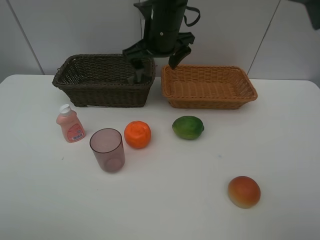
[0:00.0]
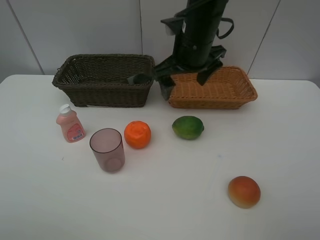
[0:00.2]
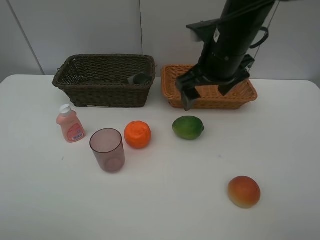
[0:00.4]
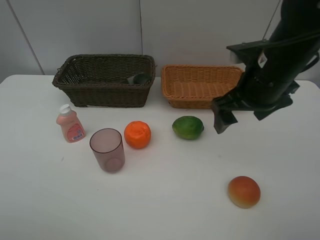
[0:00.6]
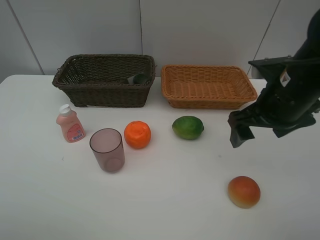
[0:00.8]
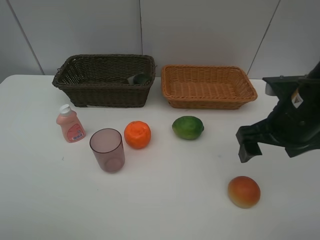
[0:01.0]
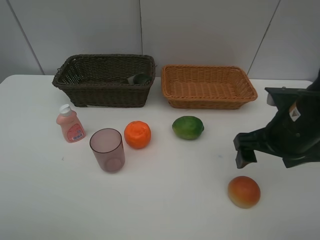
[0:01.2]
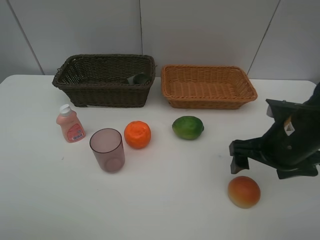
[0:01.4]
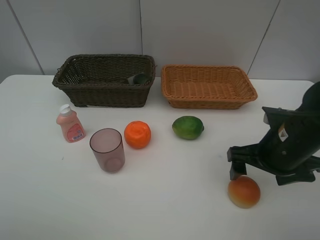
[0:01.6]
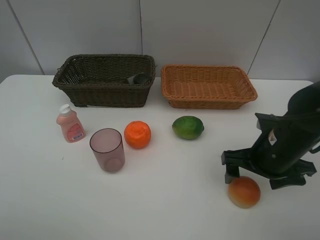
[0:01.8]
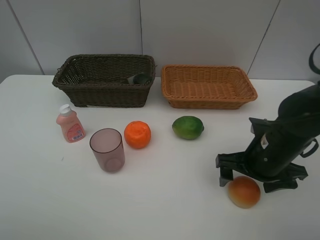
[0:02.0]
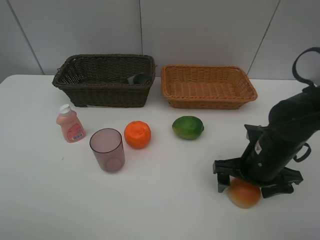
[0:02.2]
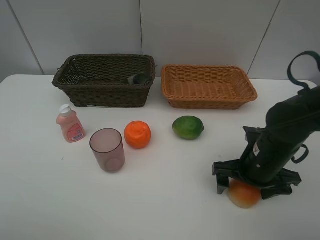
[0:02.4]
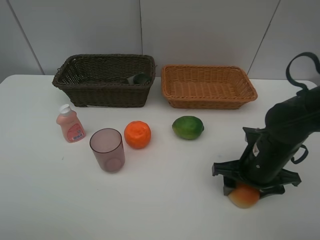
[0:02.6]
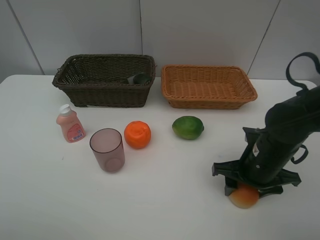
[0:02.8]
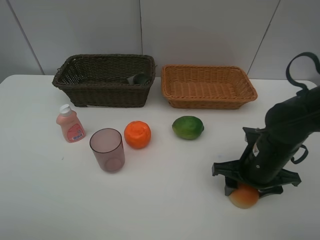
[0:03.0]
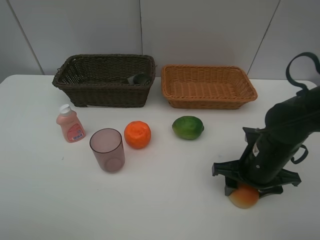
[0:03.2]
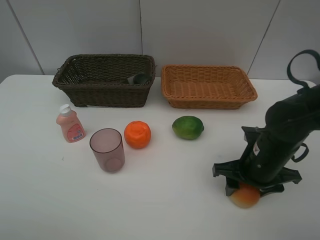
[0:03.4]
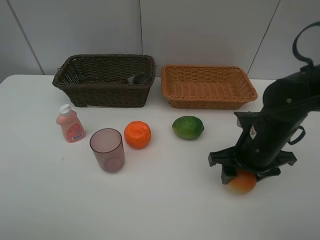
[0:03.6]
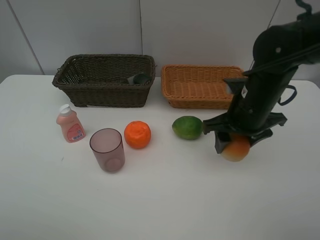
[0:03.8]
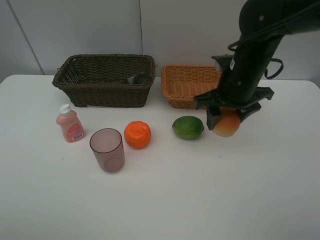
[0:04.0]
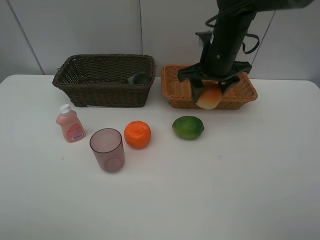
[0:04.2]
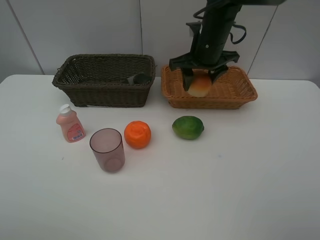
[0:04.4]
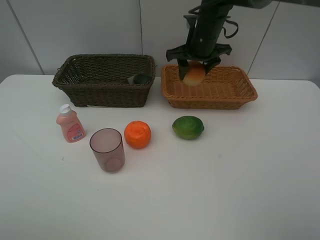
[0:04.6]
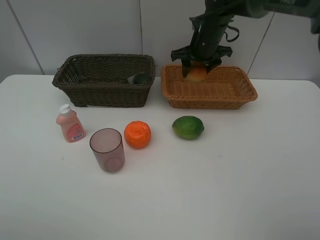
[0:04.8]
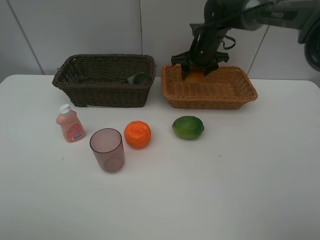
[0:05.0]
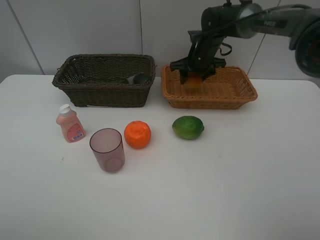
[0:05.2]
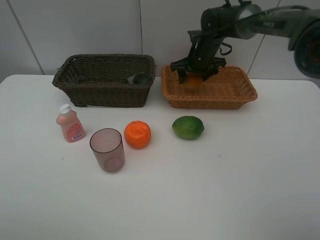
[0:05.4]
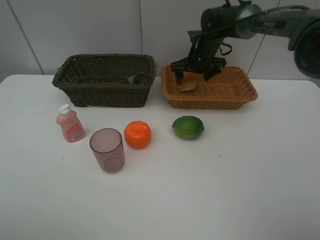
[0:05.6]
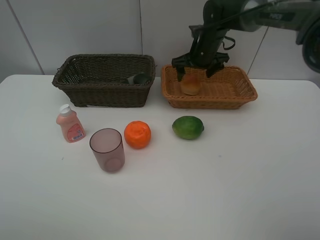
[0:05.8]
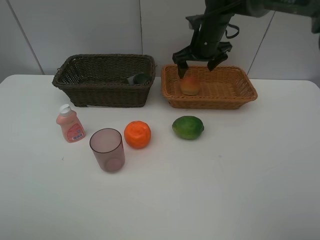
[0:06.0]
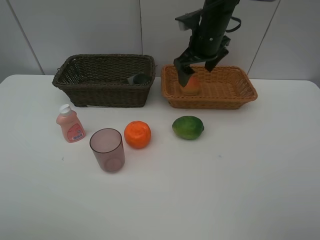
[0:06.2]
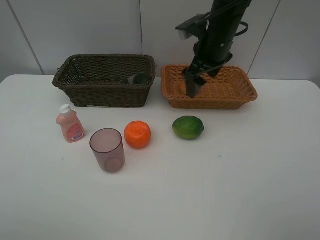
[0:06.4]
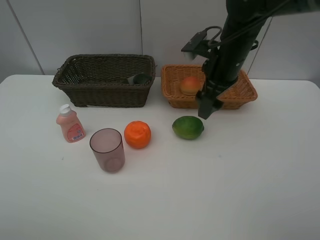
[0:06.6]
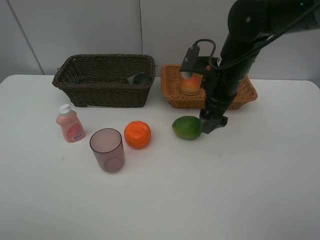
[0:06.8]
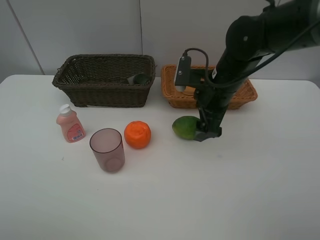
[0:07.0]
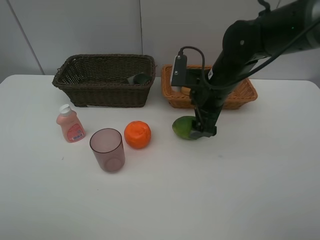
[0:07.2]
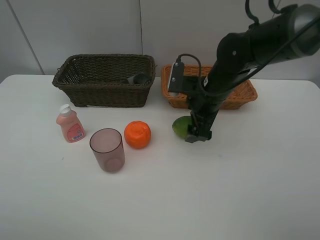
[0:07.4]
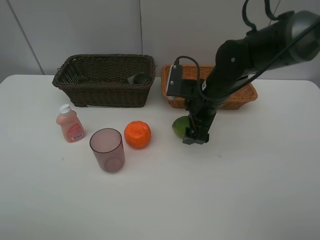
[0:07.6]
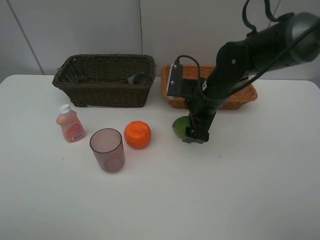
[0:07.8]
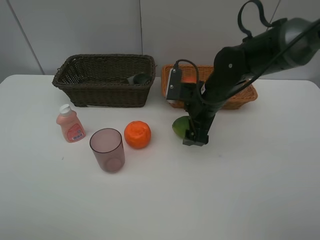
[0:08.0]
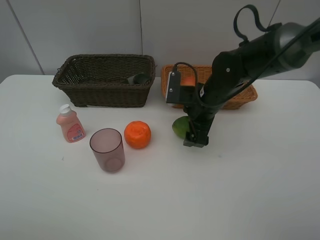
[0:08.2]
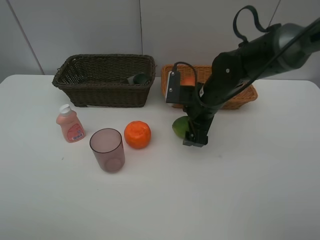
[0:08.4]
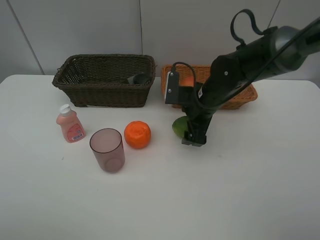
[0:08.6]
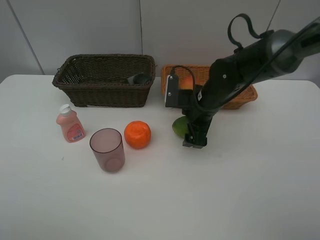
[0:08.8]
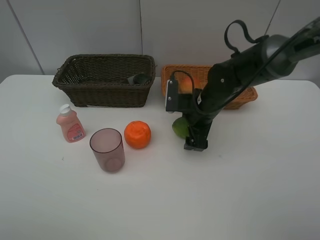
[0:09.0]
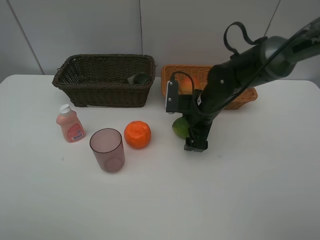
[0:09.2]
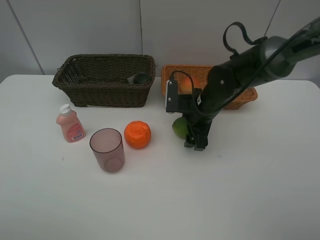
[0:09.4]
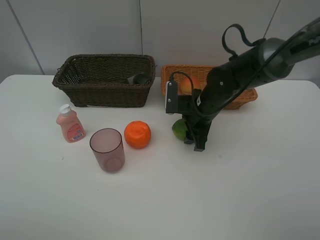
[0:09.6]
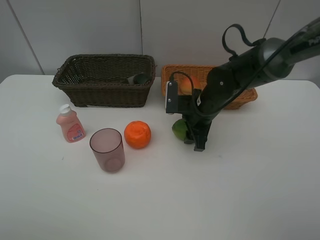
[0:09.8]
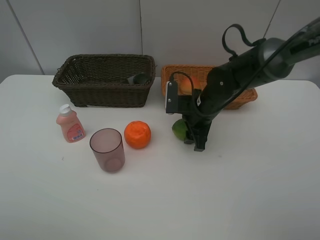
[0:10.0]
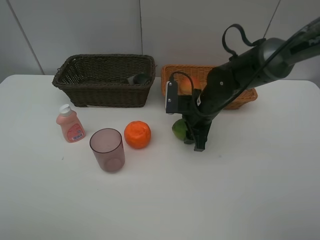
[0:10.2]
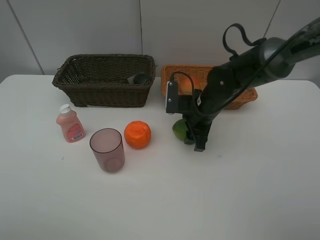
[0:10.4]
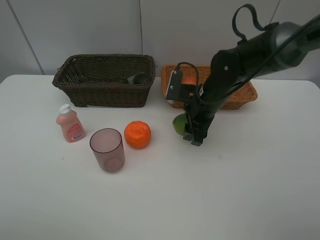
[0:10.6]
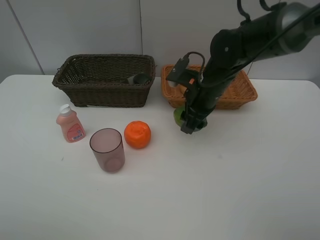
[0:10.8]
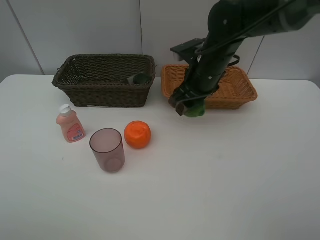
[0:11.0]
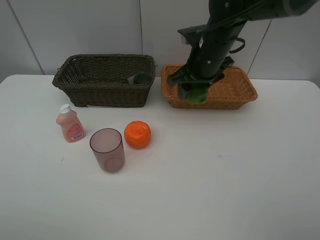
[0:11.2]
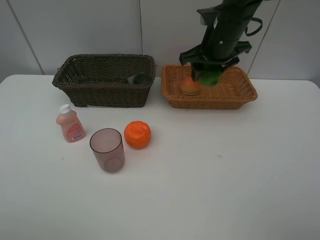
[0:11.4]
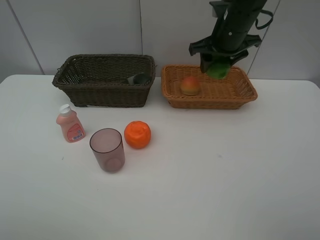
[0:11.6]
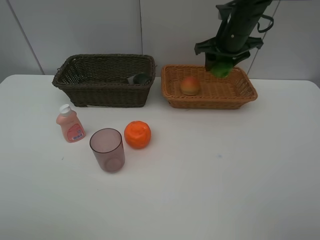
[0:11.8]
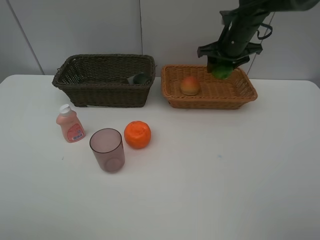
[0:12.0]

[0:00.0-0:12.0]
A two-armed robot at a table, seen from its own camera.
Task of the whole recording: place multiple objects separately in different baskets.
0:00.0 to 0:01.6: The right gripper heads to the right, backward and downward, covering roughly 30 cm.
0:01.6 to 0:03.0: The right gripper goes about 5 cm downward, and closes.
0:03.0 to 0:04.4: The right gripper shifts approximately 25 cm forward, upward and to the left.
0:04.4 to 0:06.0: The right gripper is displaced forward by roughly 5 cm, and opens its fingers.
0:06.0 to 0:07.6: The right gripper moves backward and downward, approximately 15 cm.
0:07.6 to 0:09.0: The grippers stay close to where they were, moving slightly.
0:09.0 to 0:10.4: The right gripper closes.
0:10.4 to 0:12.0: The right gripper goes roughly 20 cm forward, upward and to the right.

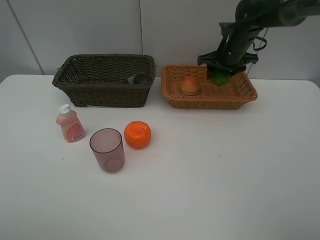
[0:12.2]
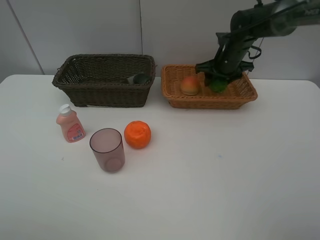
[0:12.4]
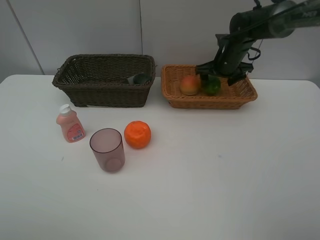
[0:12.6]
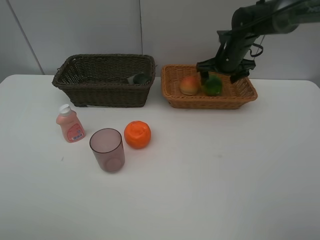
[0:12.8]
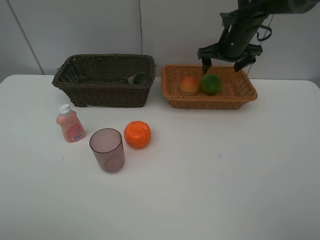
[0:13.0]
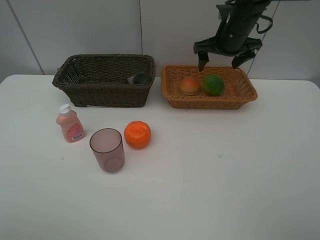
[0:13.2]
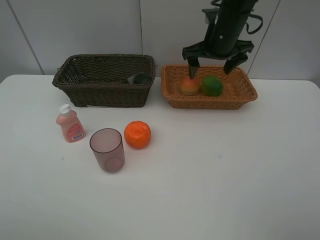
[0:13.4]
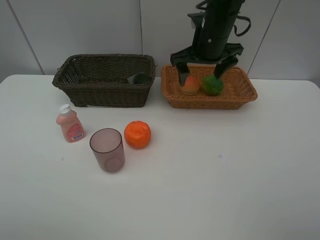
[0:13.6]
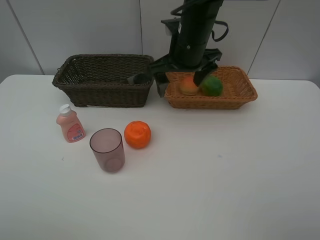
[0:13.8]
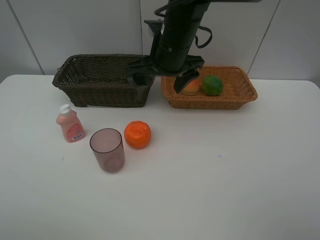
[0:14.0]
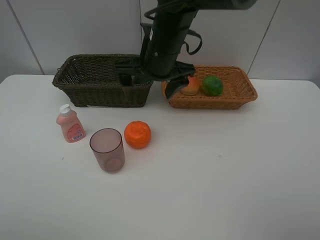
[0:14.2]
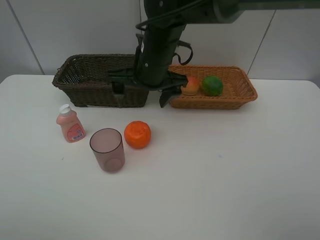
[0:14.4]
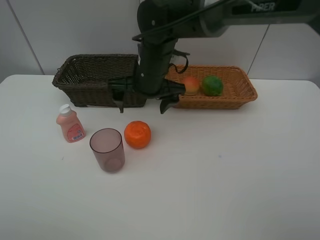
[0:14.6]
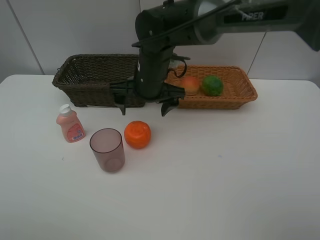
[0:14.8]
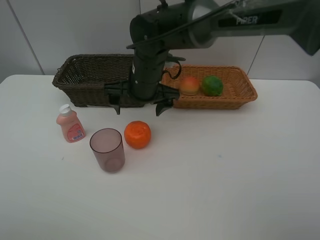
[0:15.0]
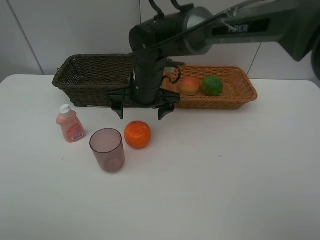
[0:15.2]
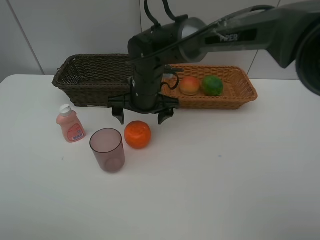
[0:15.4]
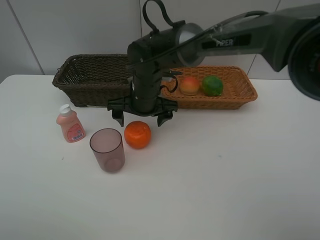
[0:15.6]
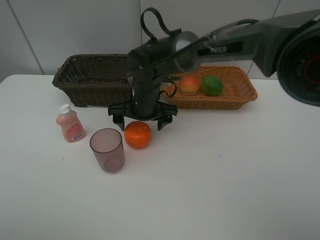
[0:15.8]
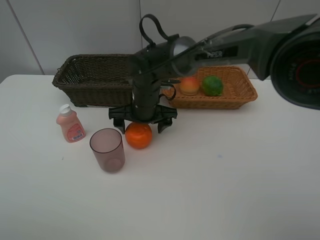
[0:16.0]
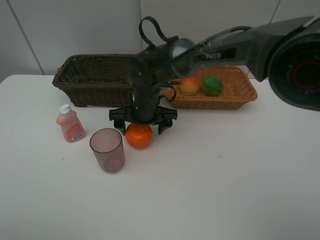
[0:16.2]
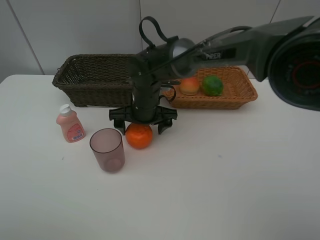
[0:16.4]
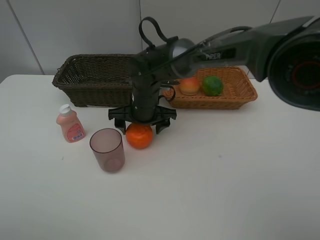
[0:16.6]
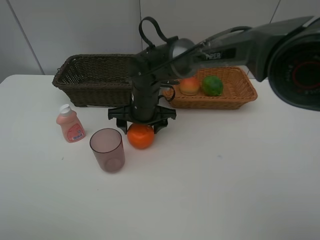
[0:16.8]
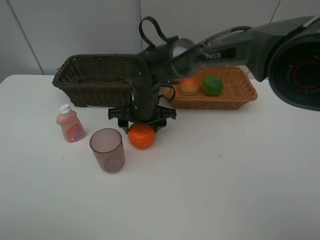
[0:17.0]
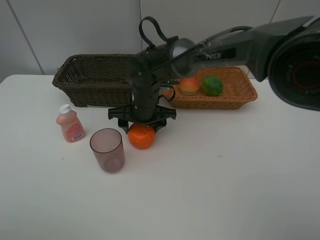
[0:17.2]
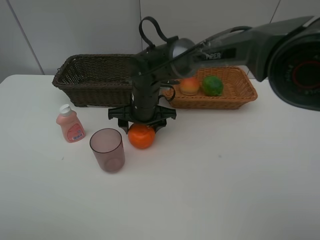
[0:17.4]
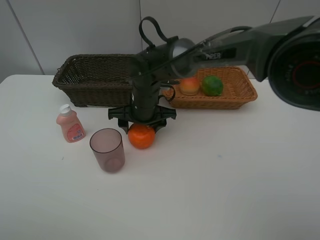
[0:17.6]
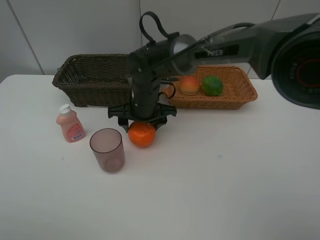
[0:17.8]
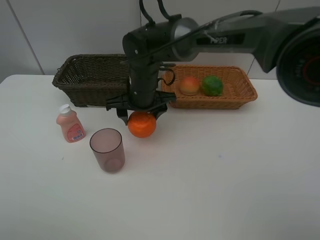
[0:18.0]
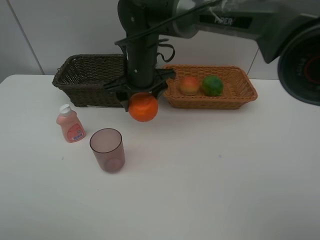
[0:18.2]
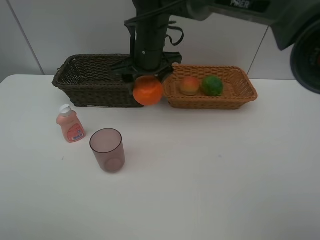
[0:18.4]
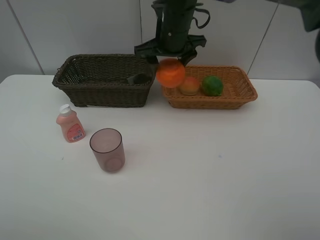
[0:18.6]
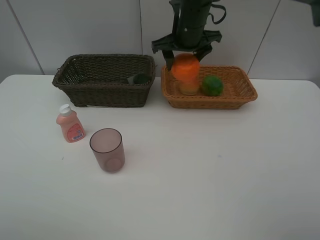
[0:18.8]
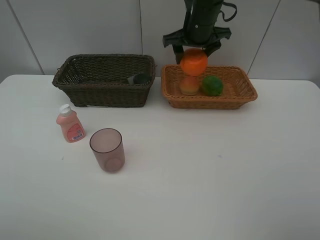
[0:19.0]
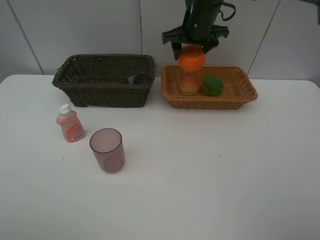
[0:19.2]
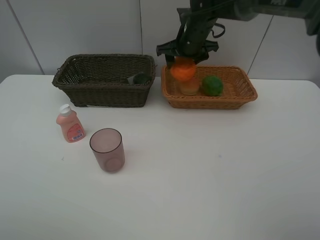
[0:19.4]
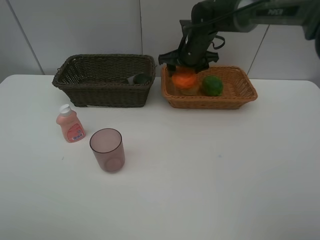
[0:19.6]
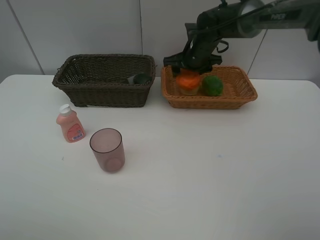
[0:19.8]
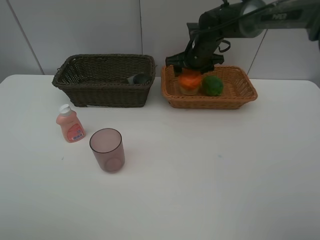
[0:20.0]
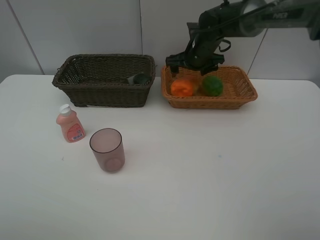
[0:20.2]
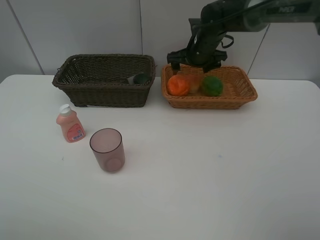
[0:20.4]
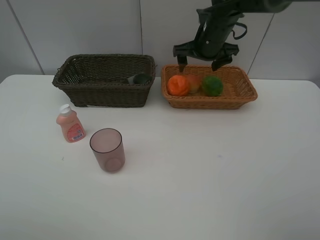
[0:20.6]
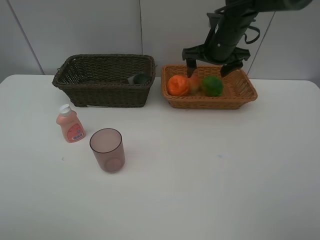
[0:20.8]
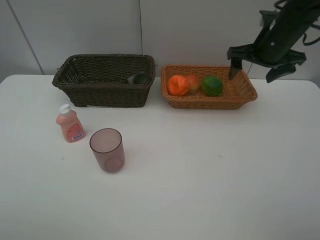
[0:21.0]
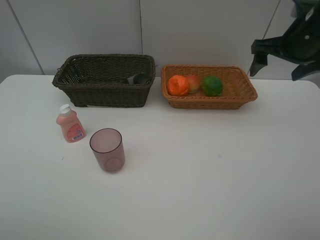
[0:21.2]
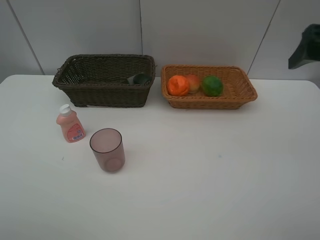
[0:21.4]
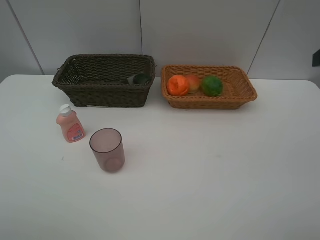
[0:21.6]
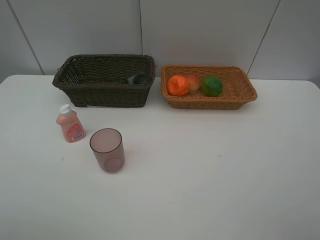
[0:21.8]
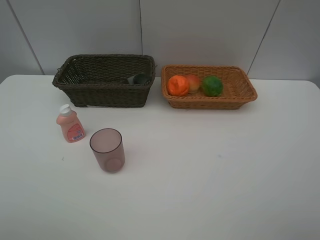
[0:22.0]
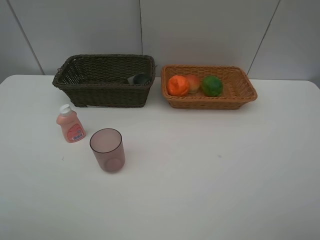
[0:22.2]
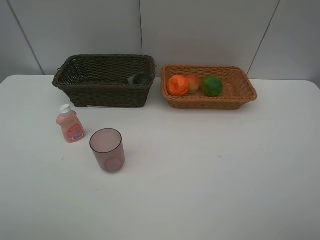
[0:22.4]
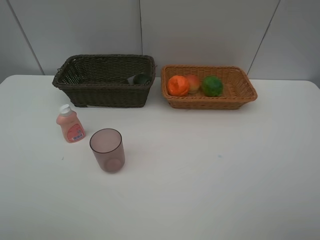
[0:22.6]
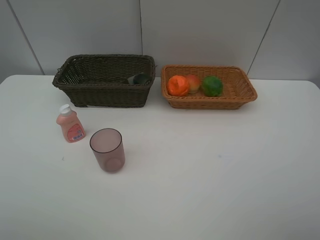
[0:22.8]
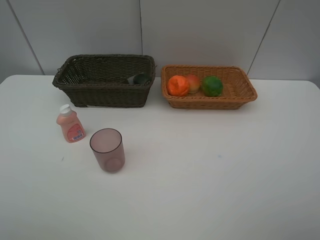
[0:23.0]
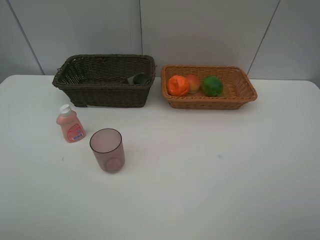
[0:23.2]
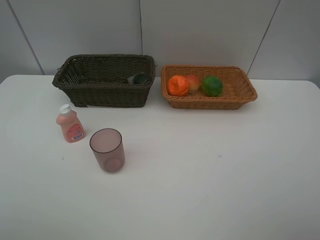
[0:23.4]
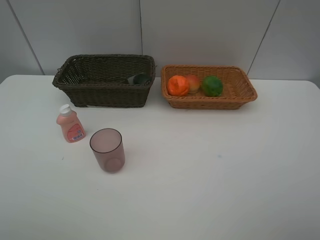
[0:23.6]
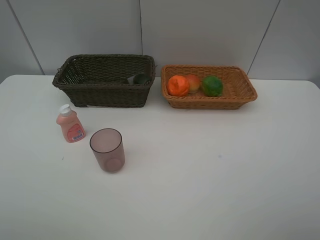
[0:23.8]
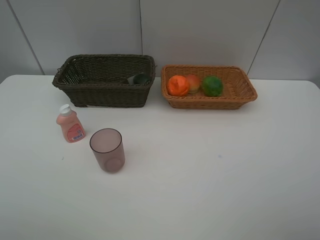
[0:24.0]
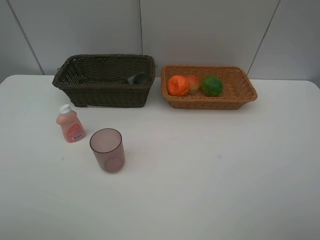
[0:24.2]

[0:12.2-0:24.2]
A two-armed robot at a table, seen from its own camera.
Task of the whole recording: place multiple objects separately in different baskets.
0:12.2 to 0:13.8: The right gripper travels to the left, backward and upward by roughly 20 cm, and opens.
0:13.8 to 0:15.2: The right gripper goes approximately 10 cm downward and to the left.
0:15.2 to 0:16.6: The right gripper moves downward, about 5 cm.
0:16.6 to 0:18.2: The right gripper goes approximately 10 cm upward.
0:18.2 to 0:19.8: The right gripper travels to the right and forward by about 20 cm.
0:19.8 to 0:21.2: The right gripper goes roughly 25 cm to the right, backward and upward, and opens its fingers.
0:21.2 to 0:22.6: The right gripper travels backward by some 30 cm.
0:22.6 to 0:24.2: Neither gripper changes place.
